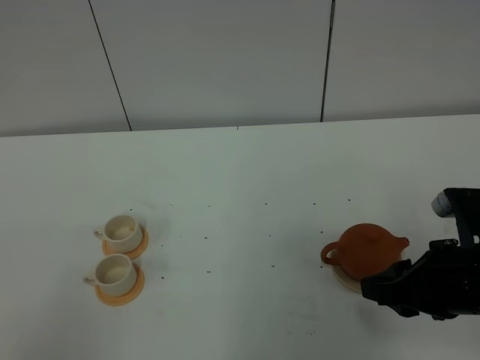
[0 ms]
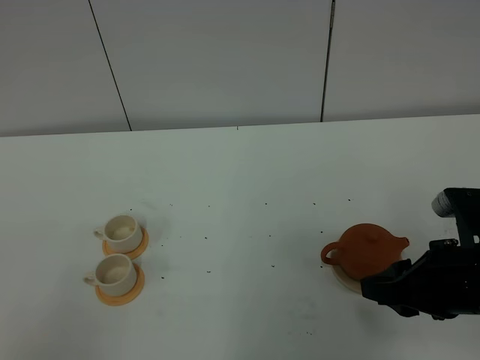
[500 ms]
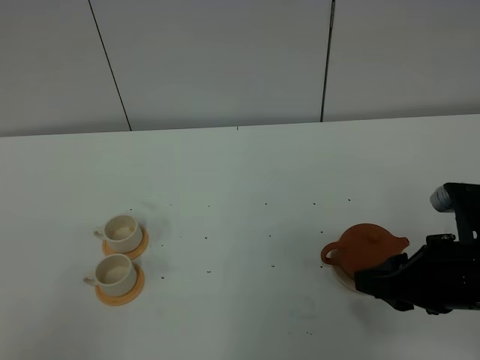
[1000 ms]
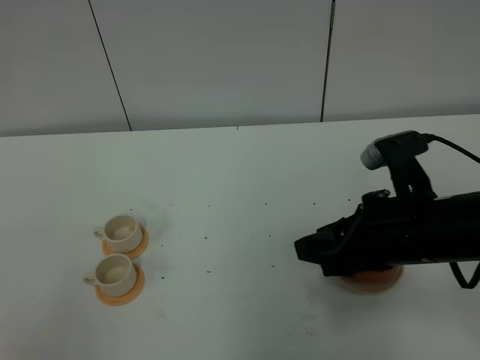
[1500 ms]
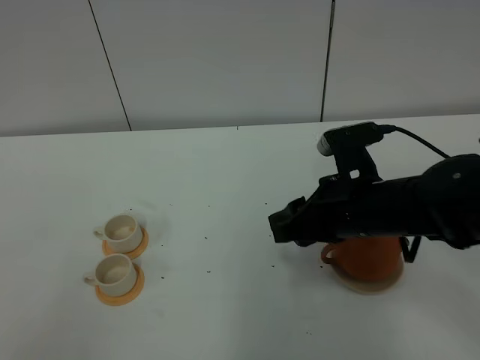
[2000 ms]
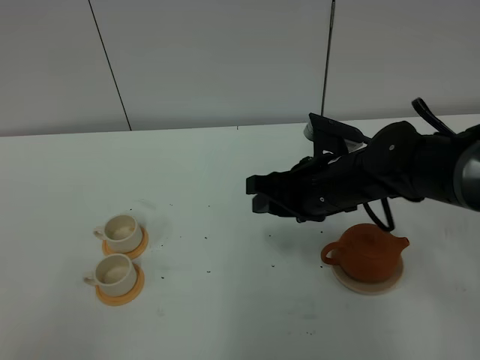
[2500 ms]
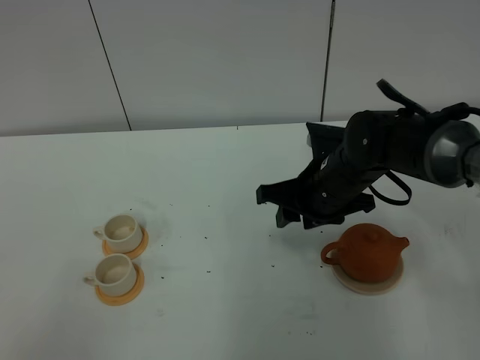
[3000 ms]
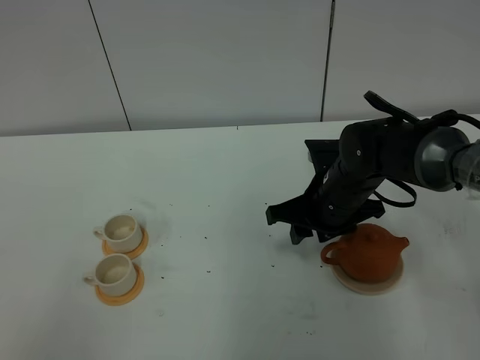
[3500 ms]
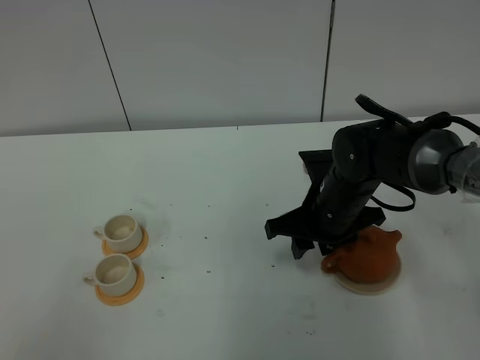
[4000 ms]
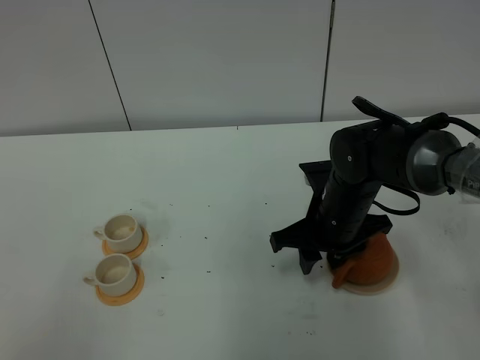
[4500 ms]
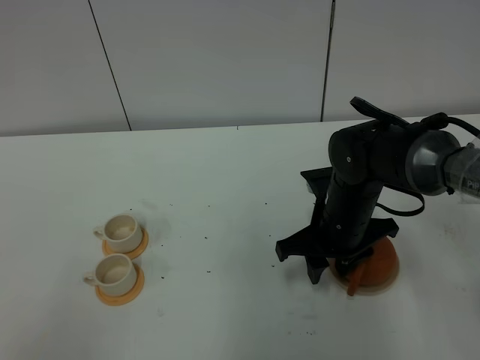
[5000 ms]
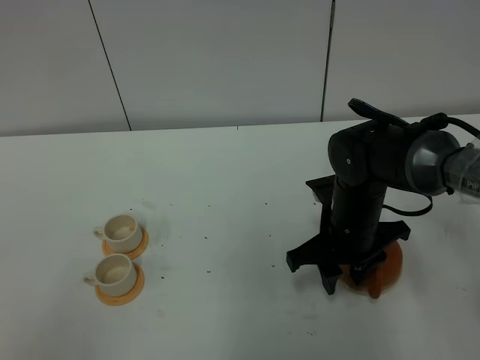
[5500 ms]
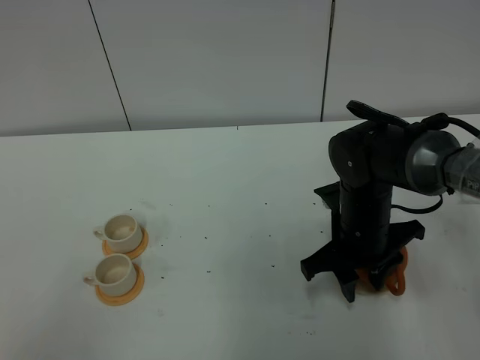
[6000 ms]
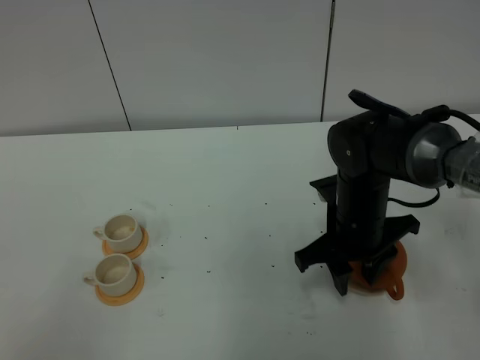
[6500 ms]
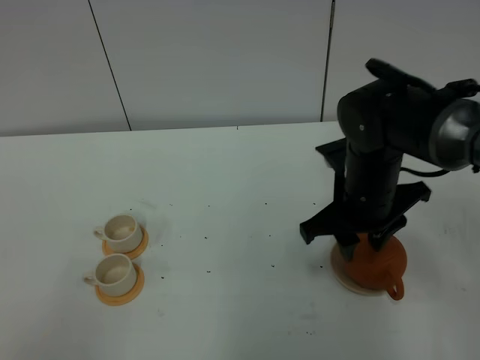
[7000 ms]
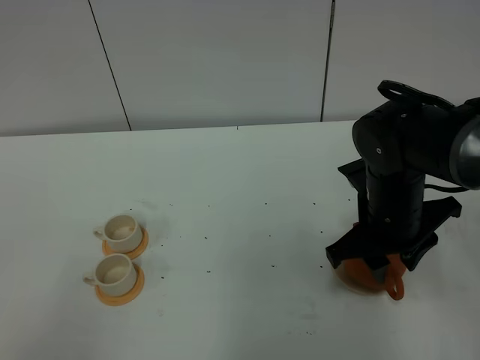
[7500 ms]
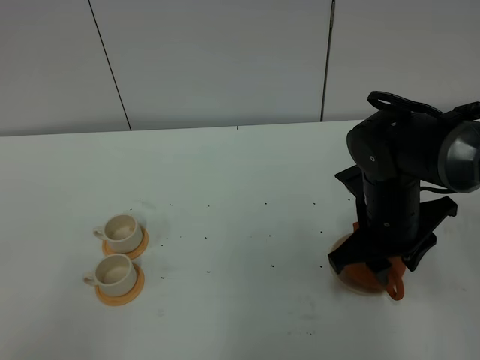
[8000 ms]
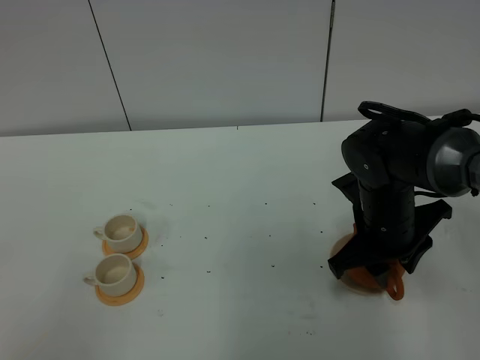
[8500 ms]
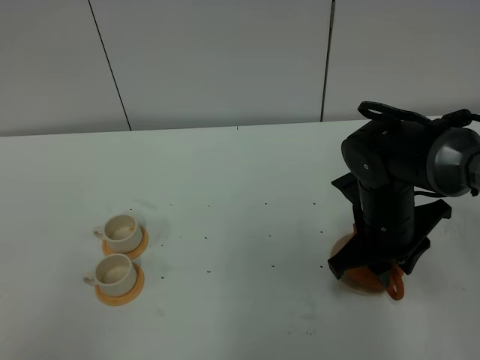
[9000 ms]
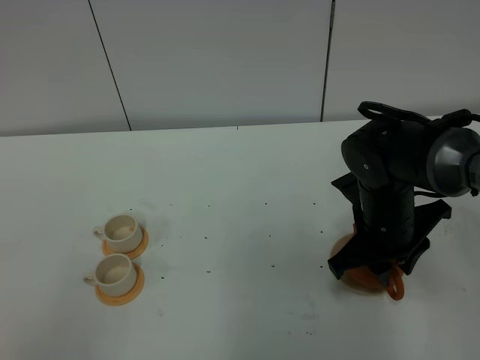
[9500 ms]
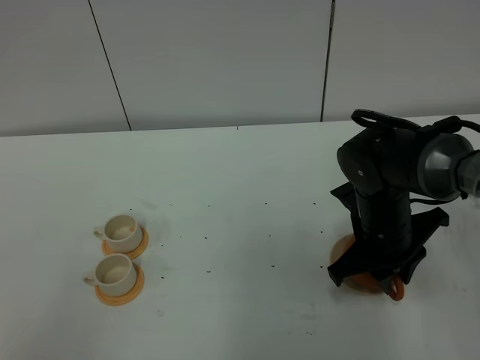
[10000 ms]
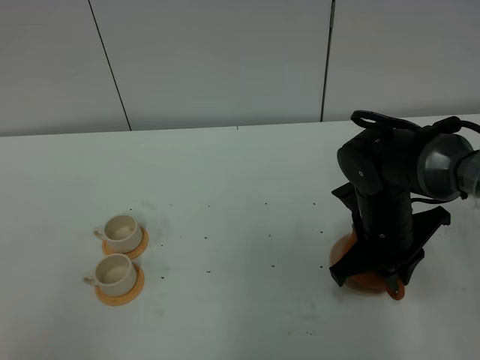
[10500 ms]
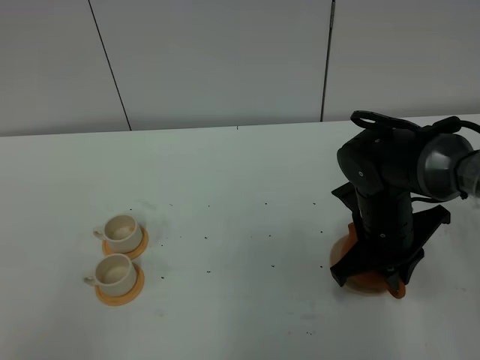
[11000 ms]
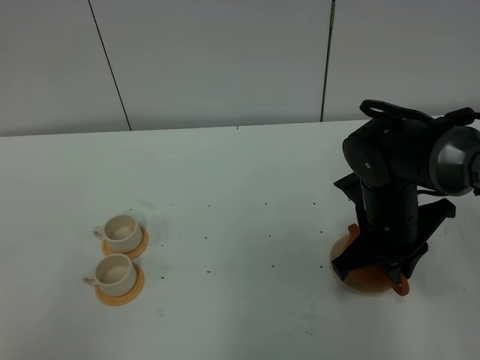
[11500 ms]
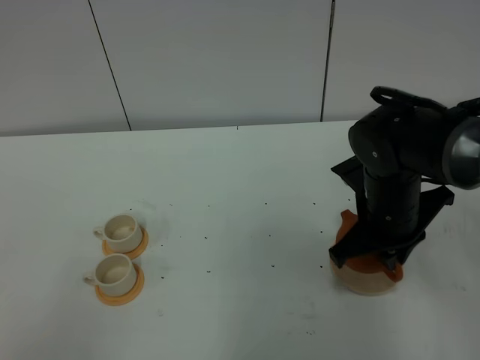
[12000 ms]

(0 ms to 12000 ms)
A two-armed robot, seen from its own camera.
Task of the whole recording: grasp the brown teapot and pour the tea into the two white teacups one by one, put the brown teapot back in its original place.
Step, 0 ms - 11500 ms: Pick up the teapot with the right gripper.
0 ms - 2000 ms: The right gripper moves to the left and forward, roughly 15 cm.
2000 ms - 4000 ms: The right gripper shifts about 10 cm forward and downward.
8000 ms - 10000 ms: The right gripper closes.
10000 ms - 12000 ms: The right gripper closes.

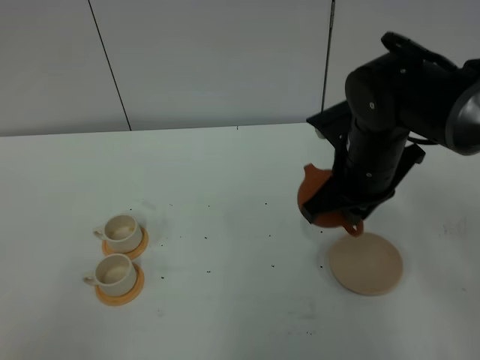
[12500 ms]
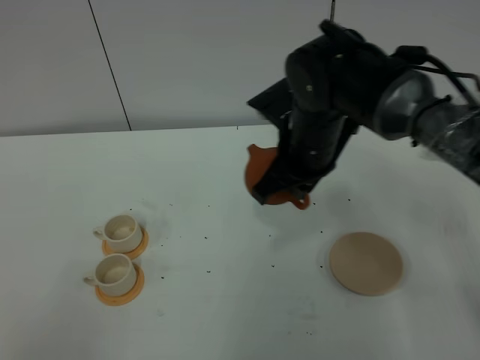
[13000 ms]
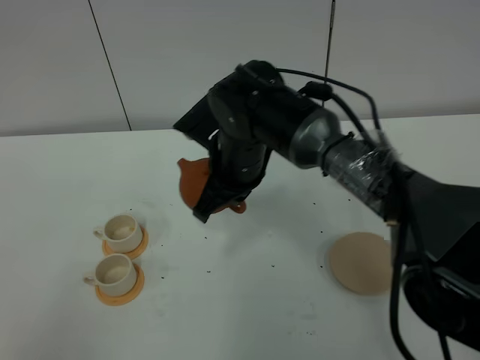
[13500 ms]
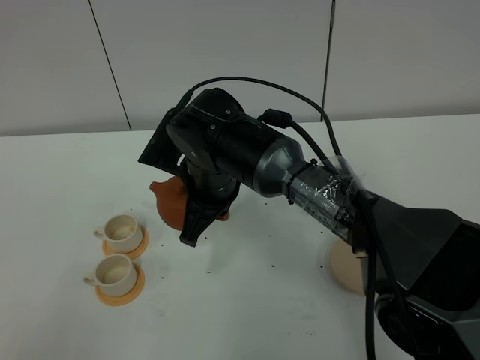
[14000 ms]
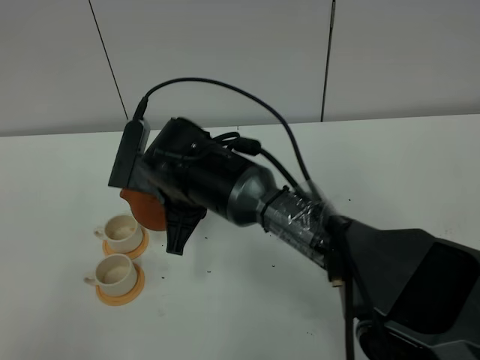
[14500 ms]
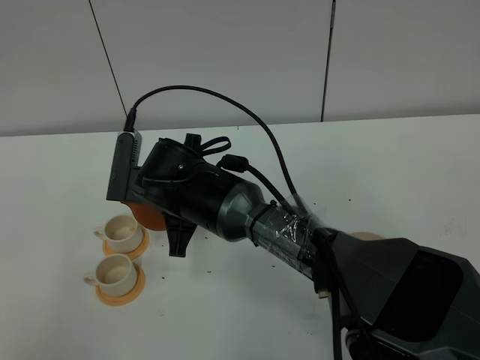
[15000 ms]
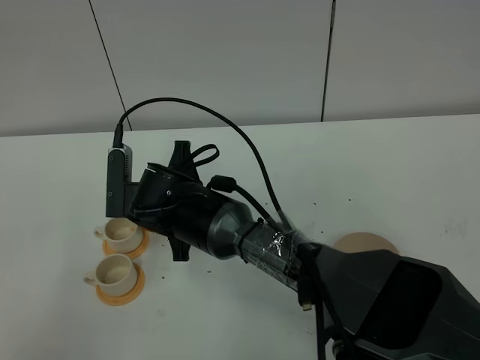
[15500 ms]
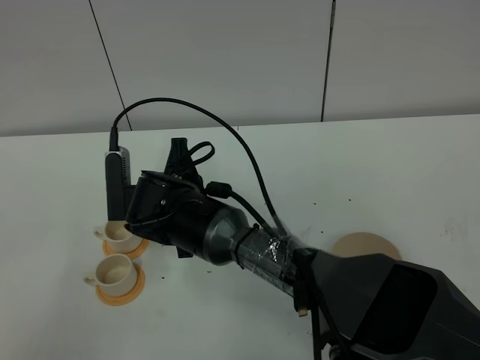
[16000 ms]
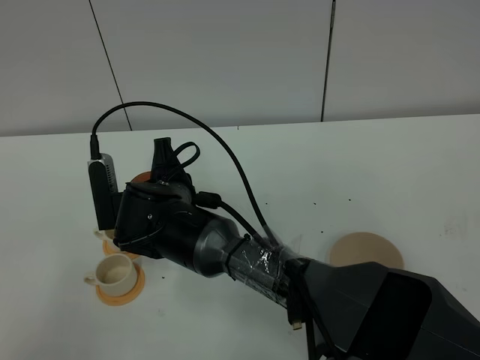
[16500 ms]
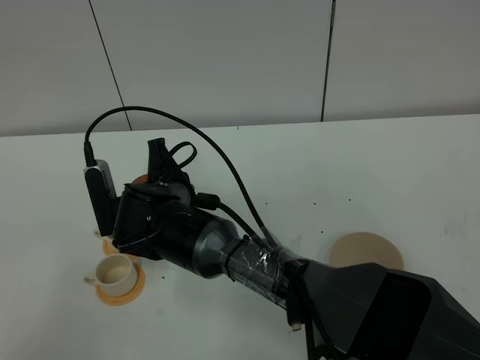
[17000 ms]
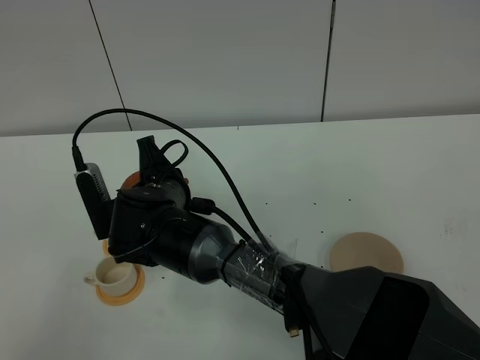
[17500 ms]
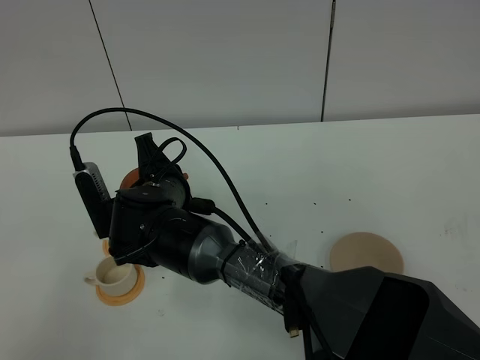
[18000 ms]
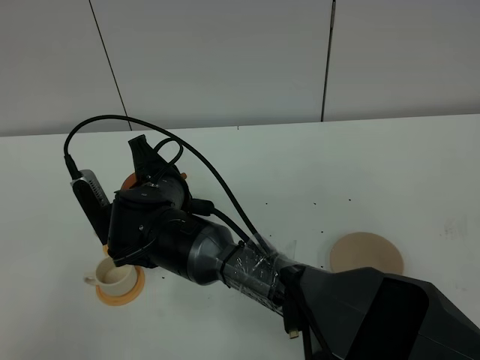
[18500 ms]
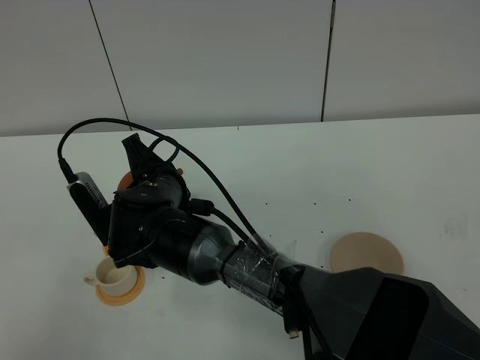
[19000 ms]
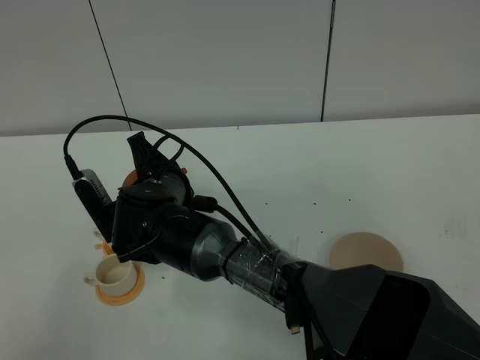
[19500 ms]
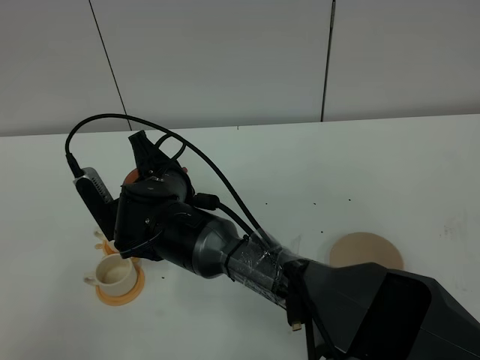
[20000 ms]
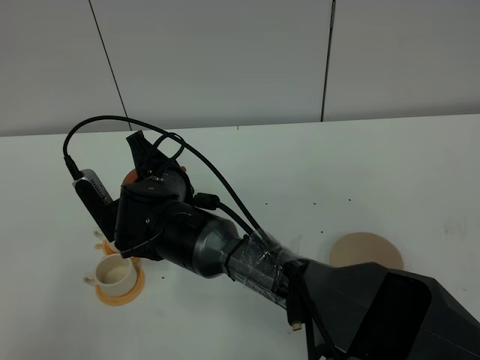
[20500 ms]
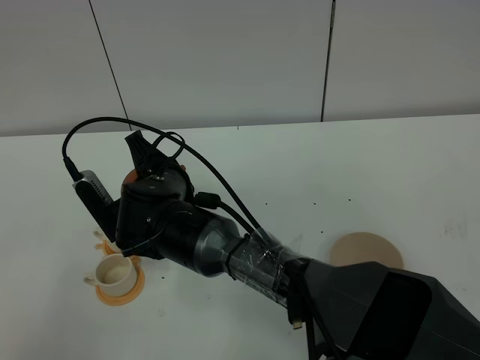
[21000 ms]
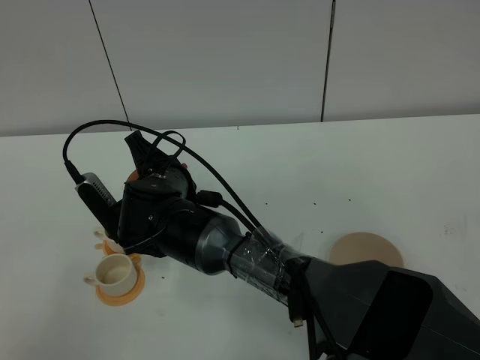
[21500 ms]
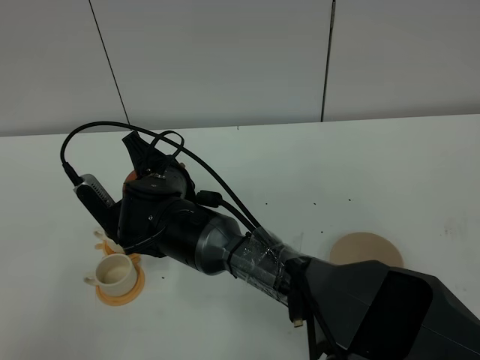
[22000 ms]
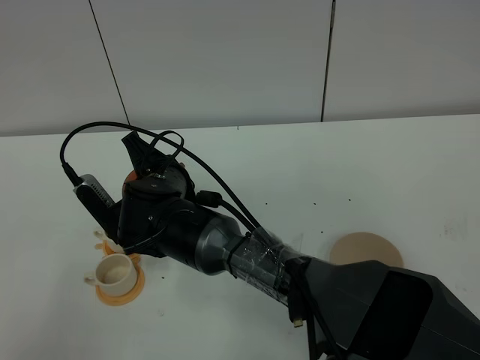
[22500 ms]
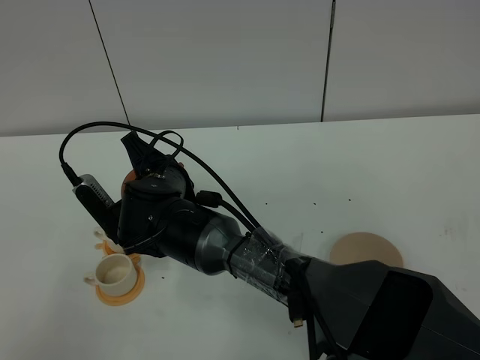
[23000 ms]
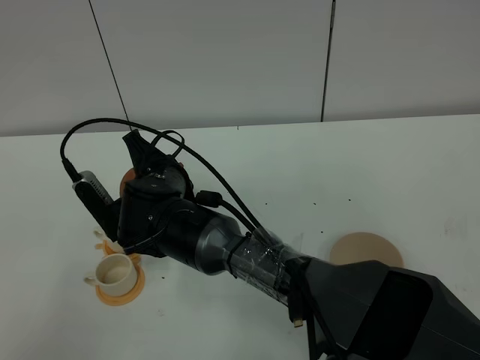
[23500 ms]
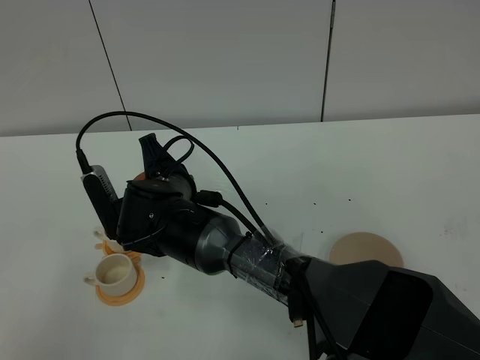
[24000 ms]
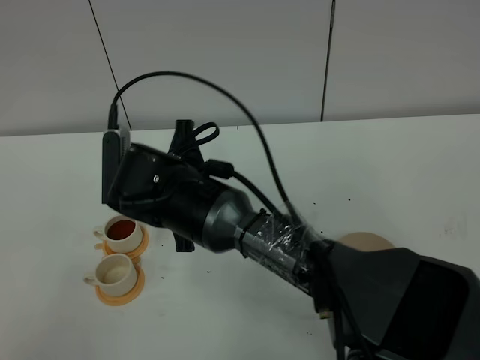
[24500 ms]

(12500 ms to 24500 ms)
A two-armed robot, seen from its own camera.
Task of the whole recording: grasp the brown teapot and pour the tea into the two white teacups one by one, put the brown teapot back in its original place.
12500 ms - 14500 ms: The right gripper shifts roughly 20 cm to the left.
16500 ms - 18500 ms: The grippers make only small movements.
18500 ms - 20500 ms: Neither gripper changes place.
20500 ms - 22500 ms: The grippers stay close to where they were, moving slightly.
22500 ms - 24500 ms: The right gripper changes place by approximately 5 cm.

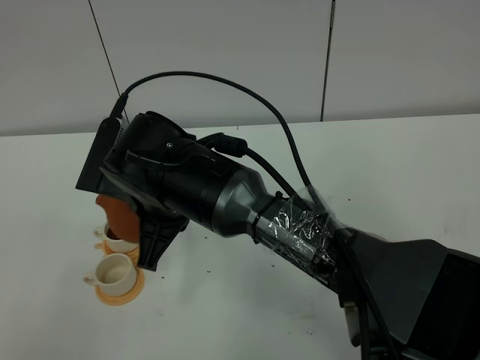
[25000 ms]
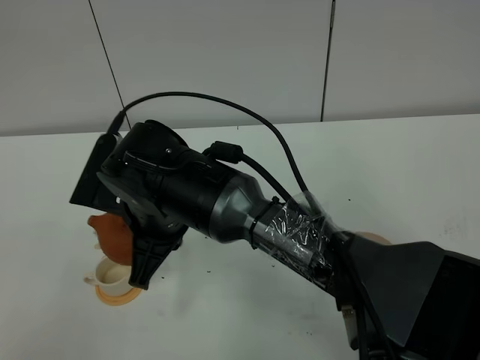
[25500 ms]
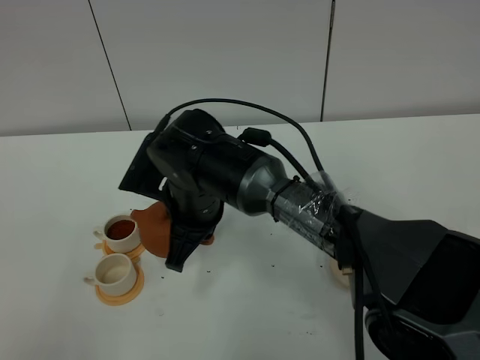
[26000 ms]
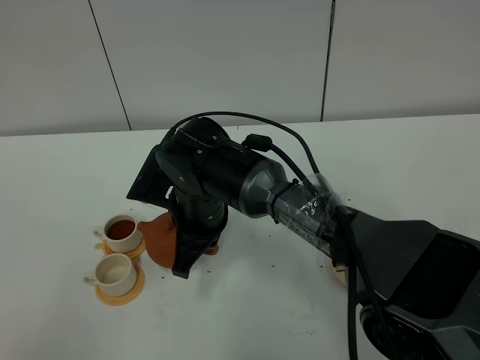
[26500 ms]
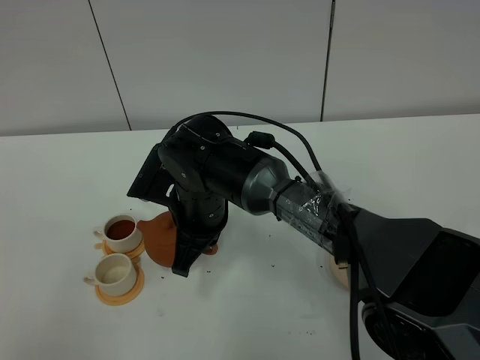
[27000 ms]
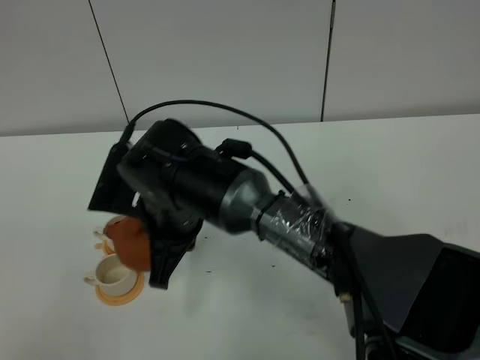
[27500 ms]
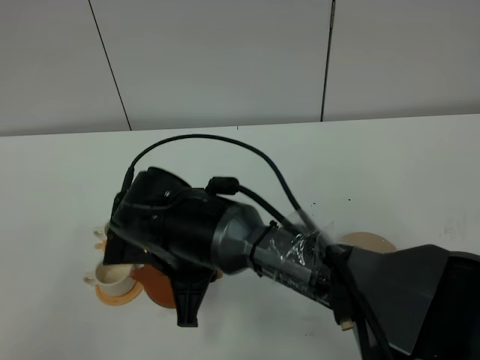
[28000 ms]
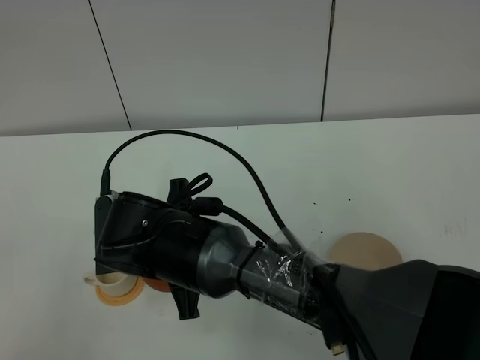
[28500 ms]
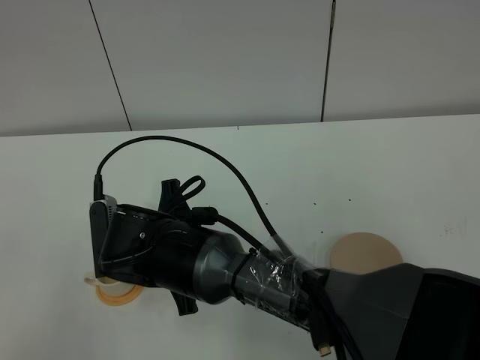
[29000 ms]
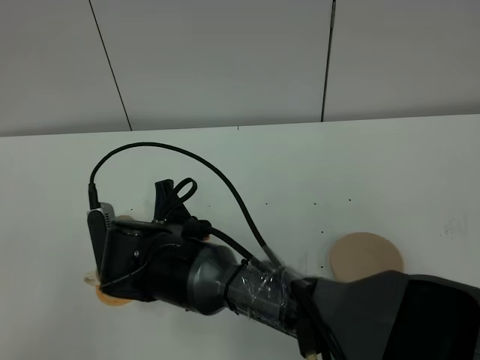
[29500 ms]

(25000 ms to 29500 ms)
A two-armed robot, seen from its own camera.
Task of the whole recording: grasp the brown teapot and pour the tea into the two white teacups one by one, put the brown teapot back in its original place.
25000 ms - 27000 ms: The right gripper travels downward by approximately 5 cm.
27000 ms - 29500 ms: The right gripper travels backward by some 5 cm.
